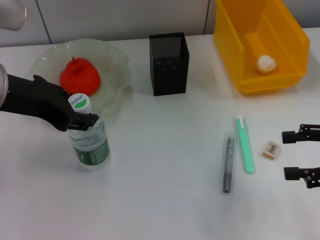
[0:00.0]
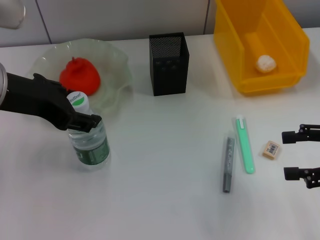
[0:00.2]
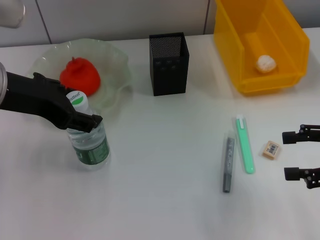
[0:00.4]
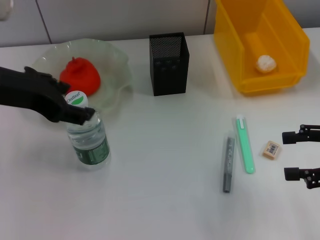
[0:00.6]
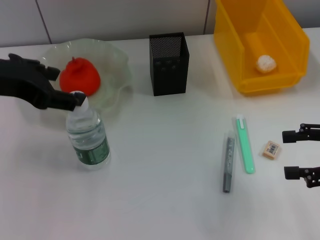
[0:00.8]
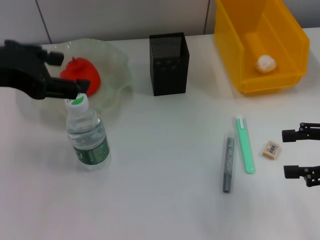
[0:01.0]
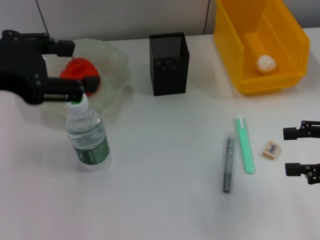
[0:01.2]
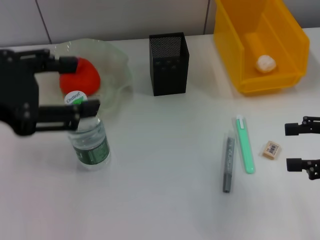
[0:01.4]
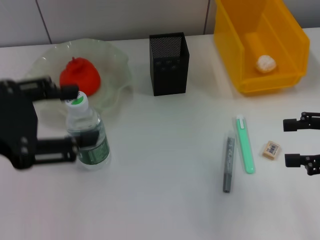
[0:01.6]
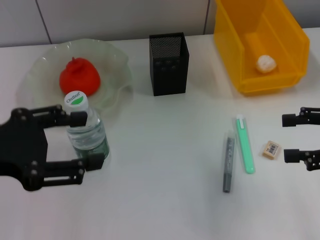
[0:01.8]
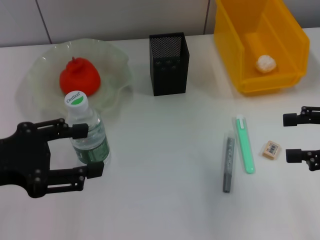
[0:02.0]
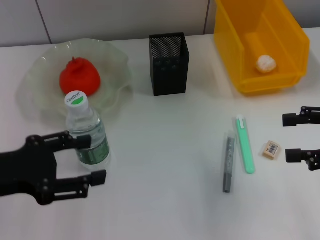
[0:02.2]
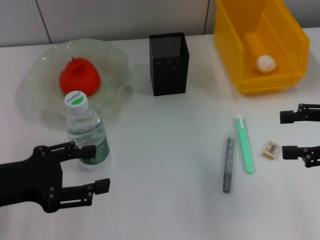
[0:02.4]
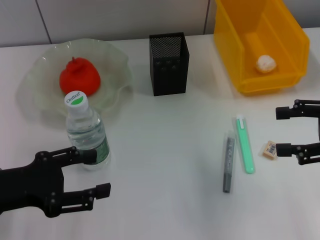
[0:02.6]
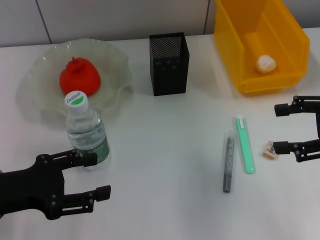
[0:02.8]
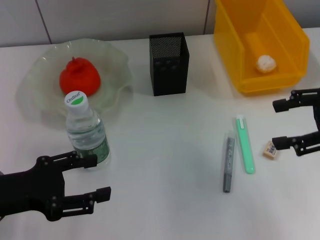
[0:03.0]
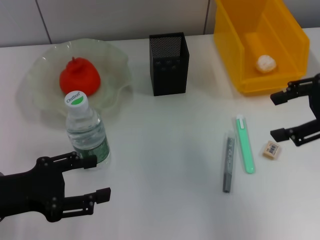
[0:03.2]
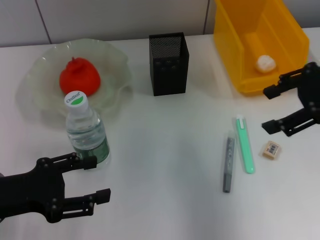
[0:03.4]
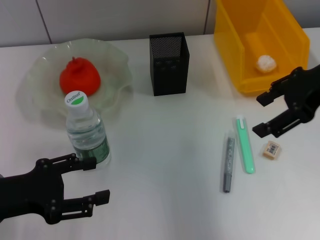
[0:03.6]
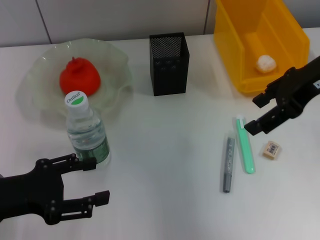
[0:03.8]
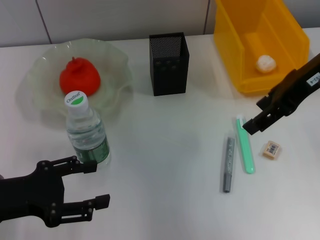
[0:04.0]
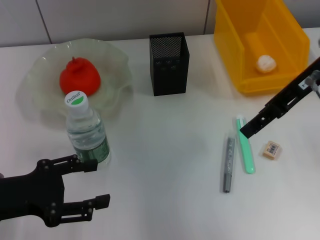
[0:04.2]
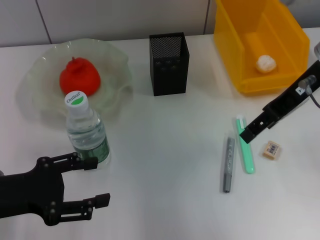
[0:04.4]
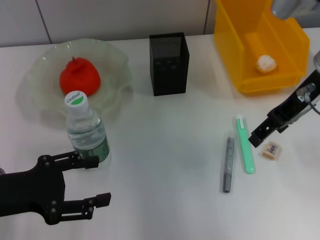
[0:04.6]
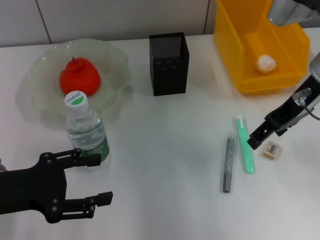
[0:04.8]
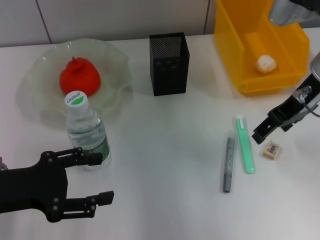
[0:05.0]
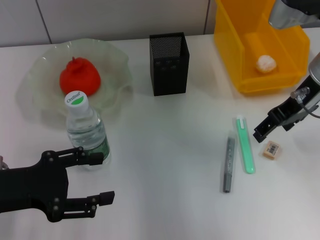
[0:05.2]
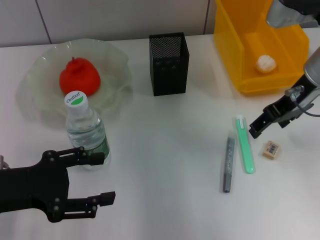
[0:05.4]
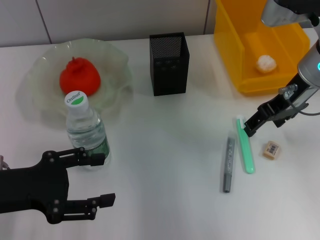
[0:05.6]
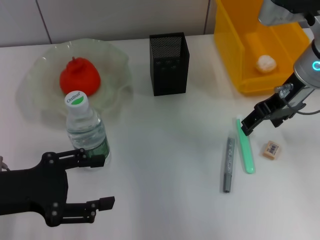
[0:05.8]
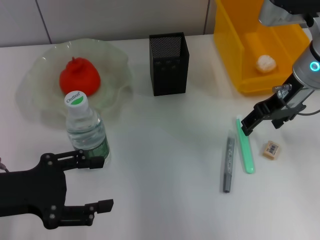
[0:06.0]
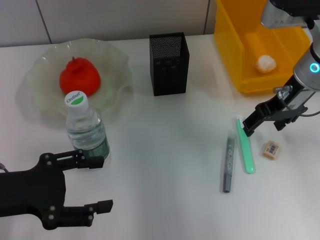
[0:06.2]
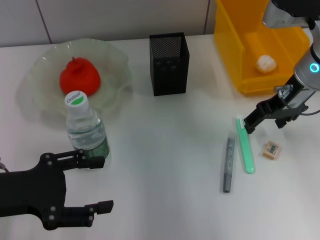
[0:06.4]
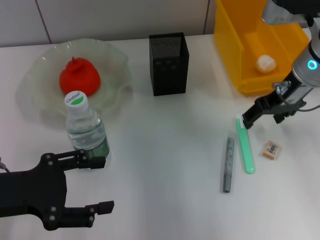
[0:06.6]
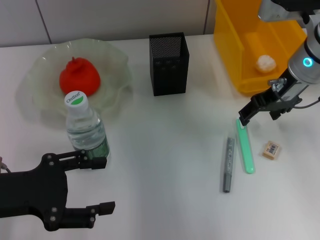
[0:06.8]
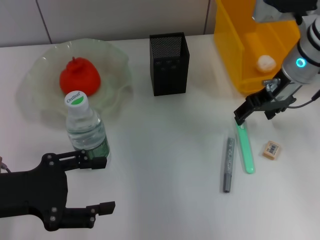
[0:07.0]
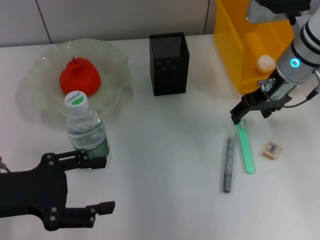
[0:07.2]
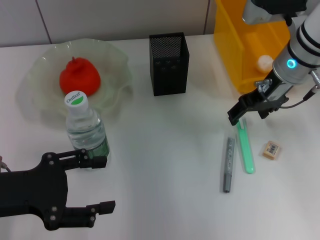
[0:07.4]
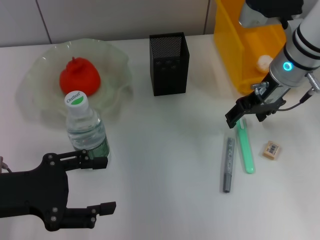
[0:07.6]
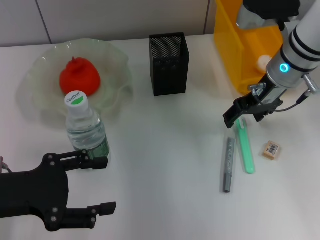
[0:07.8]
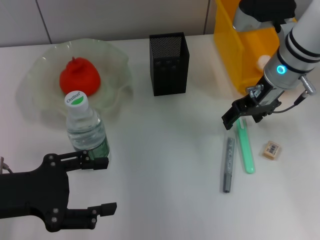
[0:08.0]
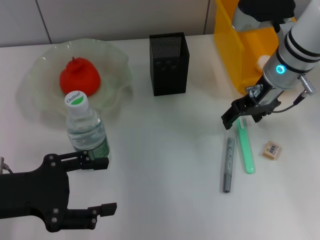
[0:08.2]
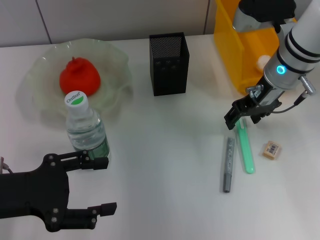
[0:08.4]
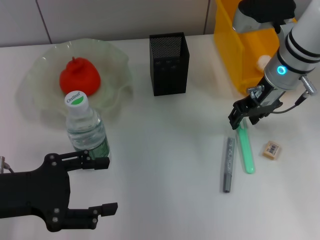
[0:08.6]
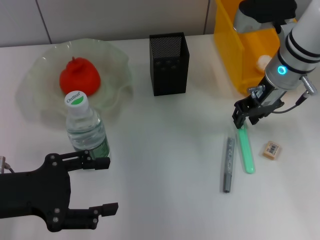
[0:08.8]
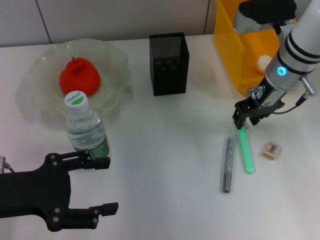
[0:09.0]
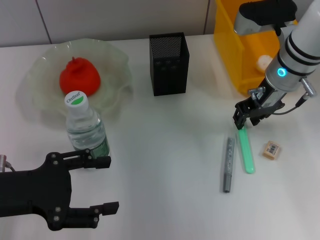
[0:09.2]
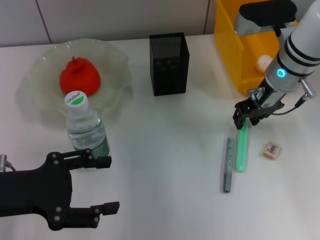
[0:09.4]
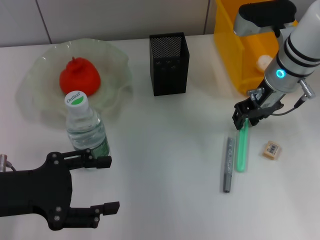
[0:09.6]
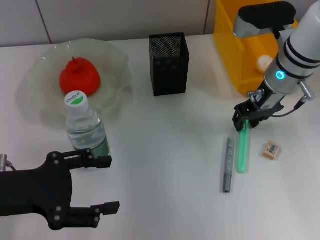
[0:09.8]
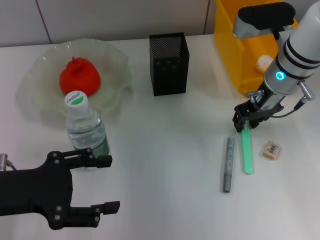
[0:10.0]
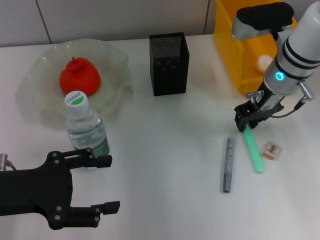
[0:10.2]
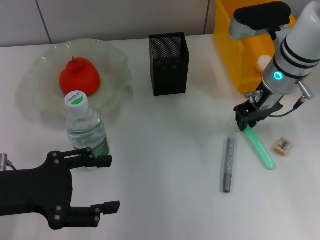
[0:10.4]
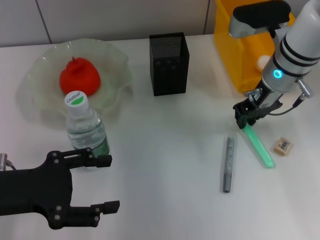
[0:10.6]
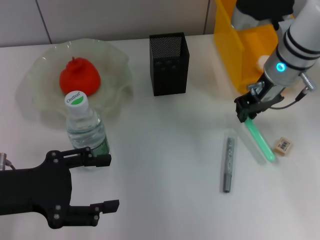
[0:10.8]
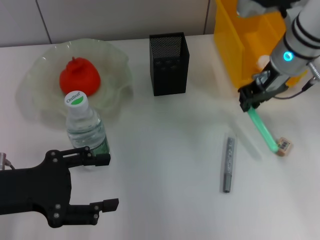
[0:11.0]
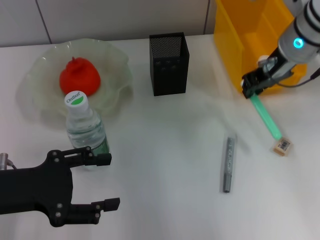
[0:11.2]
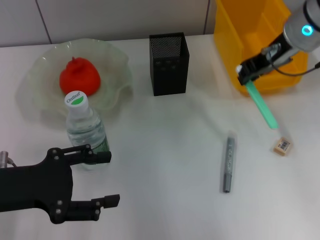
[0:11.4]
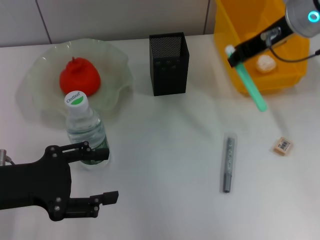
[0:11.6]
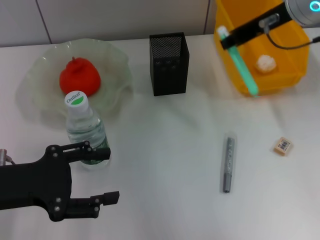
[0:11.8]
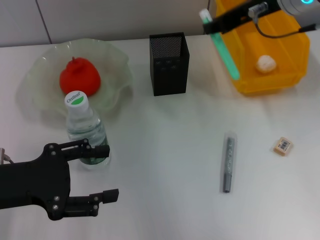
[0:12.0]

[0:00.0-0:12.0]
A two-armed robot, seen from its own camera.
Step, 0:00.6 to 0:10.2: Grab the blue utility knife with the right hand.
0:00.0 to 0:01.6: The left gripper goes approximately 10 cm backward and to the left.
0:01.6 to 0:03.0: The left gripper travels downward by approximately 15 cm. Meanwhile the right gripper heads upward, covering about 5 cm.
0:03.0 to 0:04.4: The right gripper travels to the left and forward by some 15 cm.
0:04.4 to 0:06.0: The right gripper shifts about 5 cm downward.
0:06.0 to 0:07.6: The grippers stay close to where they were, moving slightly.
0:07.6 to 0:09.0: The right gripper closes.
0:09.0 to 0:10.4: The two grippers keep their place.
0:10.4 to 0:12.0: The right gripper travels upward by roughly 15 cm.

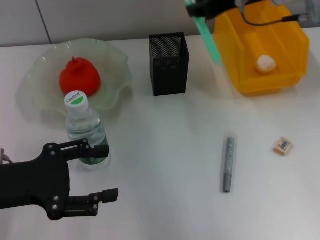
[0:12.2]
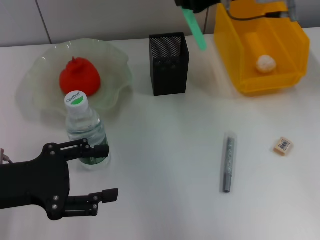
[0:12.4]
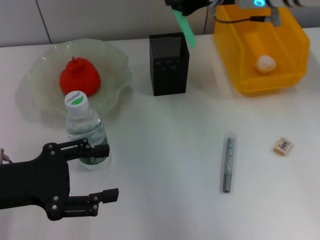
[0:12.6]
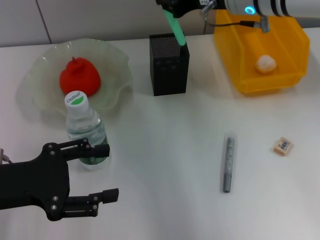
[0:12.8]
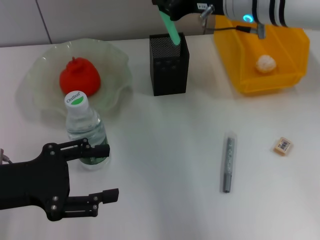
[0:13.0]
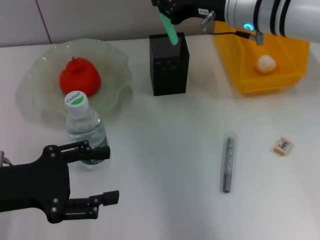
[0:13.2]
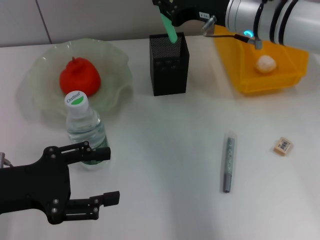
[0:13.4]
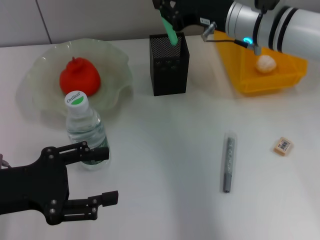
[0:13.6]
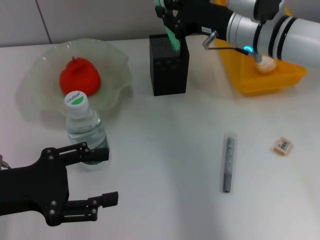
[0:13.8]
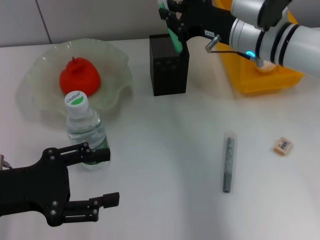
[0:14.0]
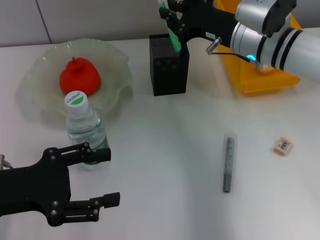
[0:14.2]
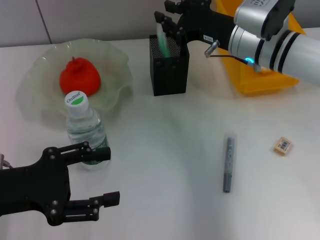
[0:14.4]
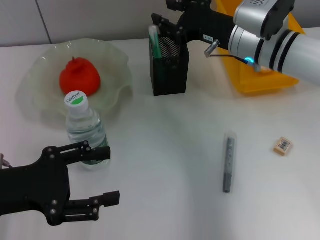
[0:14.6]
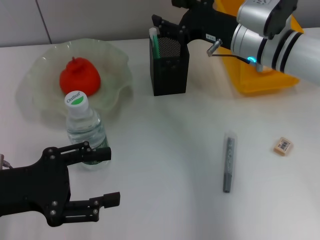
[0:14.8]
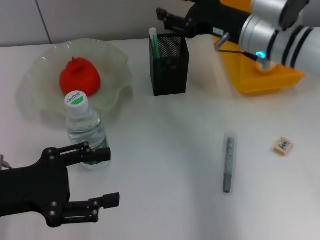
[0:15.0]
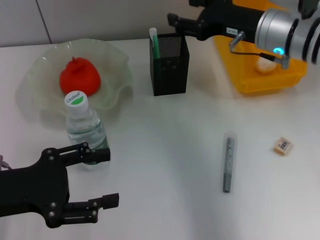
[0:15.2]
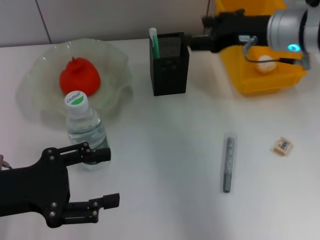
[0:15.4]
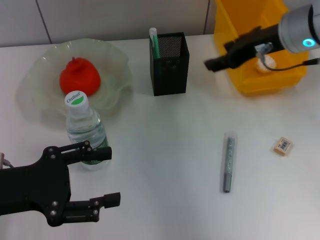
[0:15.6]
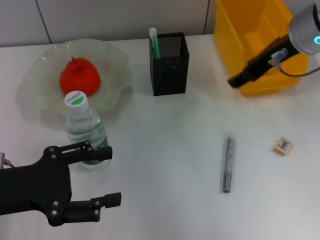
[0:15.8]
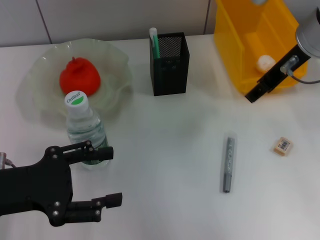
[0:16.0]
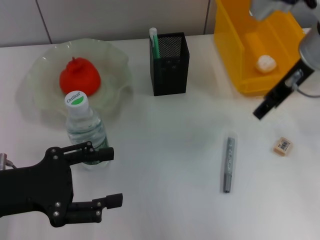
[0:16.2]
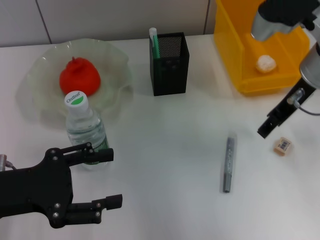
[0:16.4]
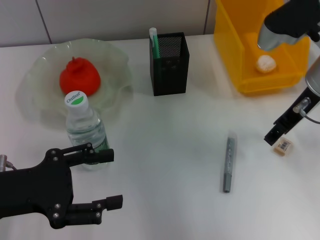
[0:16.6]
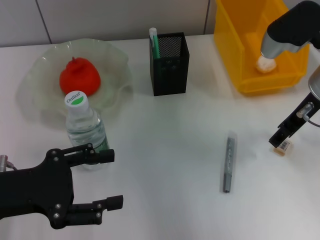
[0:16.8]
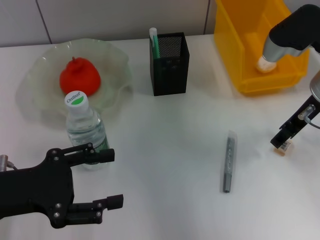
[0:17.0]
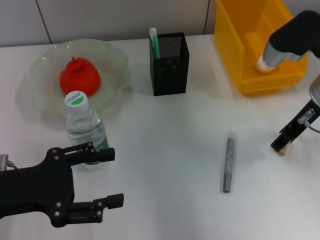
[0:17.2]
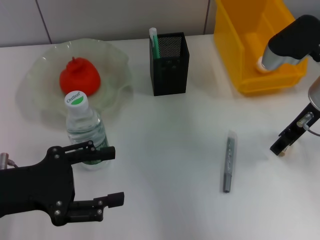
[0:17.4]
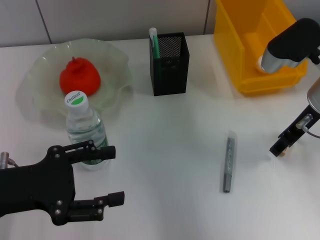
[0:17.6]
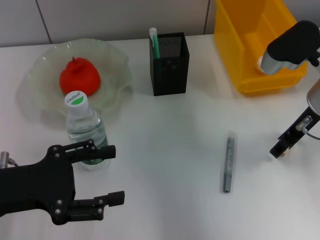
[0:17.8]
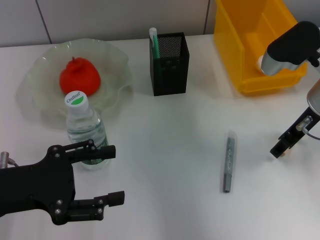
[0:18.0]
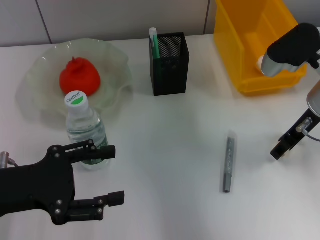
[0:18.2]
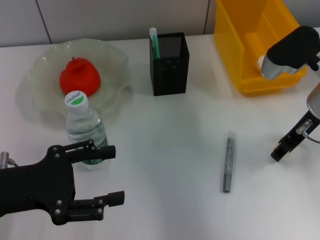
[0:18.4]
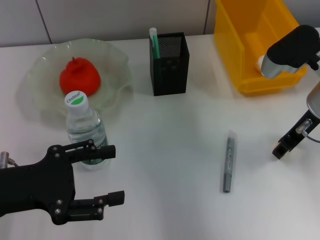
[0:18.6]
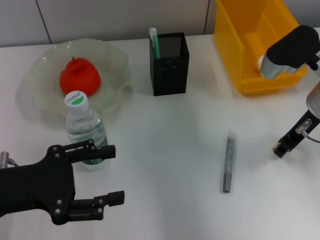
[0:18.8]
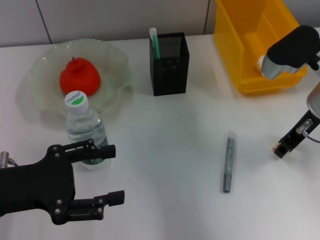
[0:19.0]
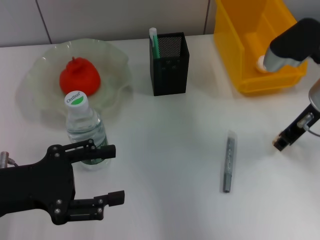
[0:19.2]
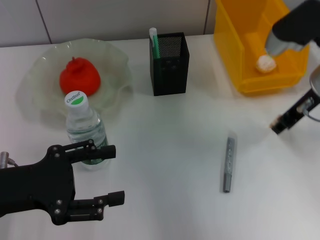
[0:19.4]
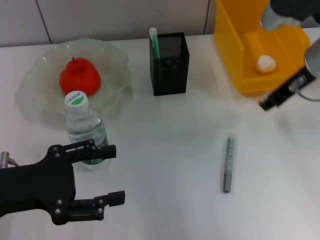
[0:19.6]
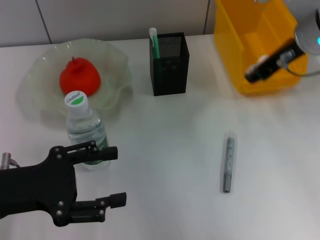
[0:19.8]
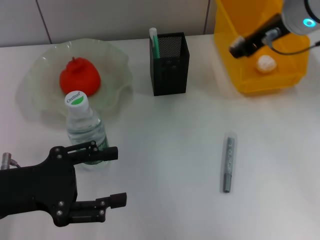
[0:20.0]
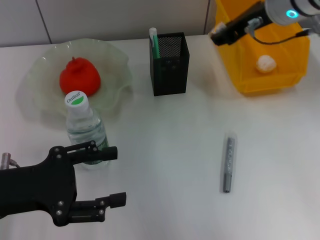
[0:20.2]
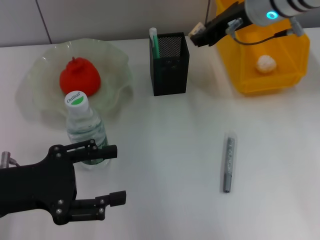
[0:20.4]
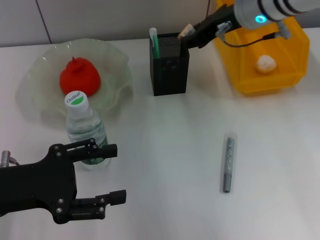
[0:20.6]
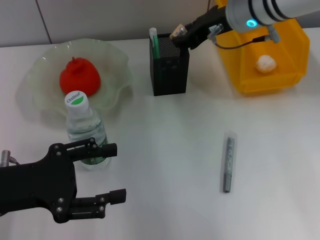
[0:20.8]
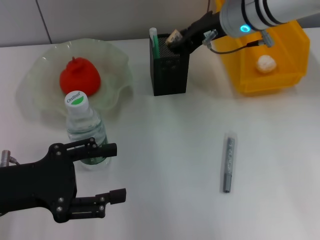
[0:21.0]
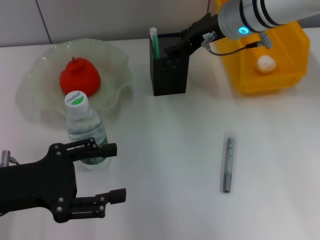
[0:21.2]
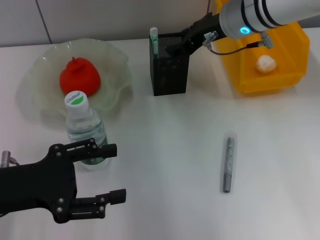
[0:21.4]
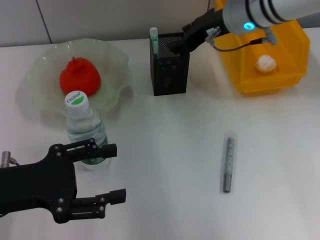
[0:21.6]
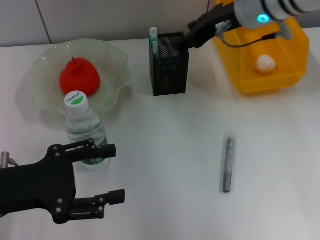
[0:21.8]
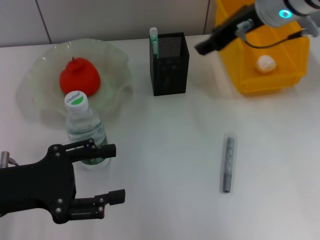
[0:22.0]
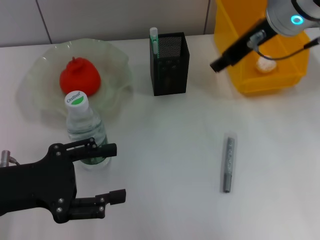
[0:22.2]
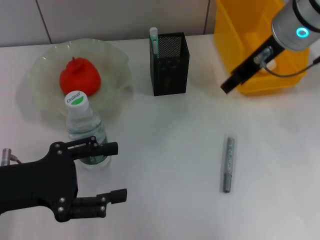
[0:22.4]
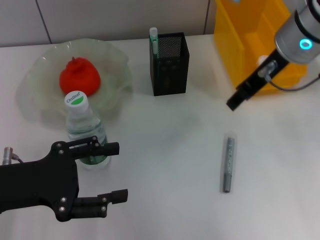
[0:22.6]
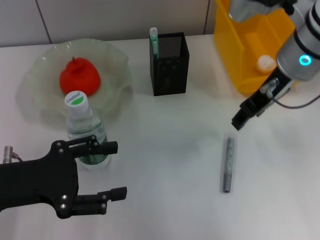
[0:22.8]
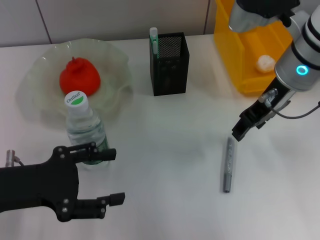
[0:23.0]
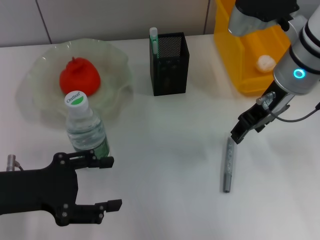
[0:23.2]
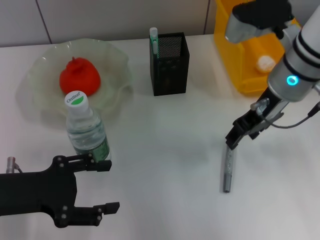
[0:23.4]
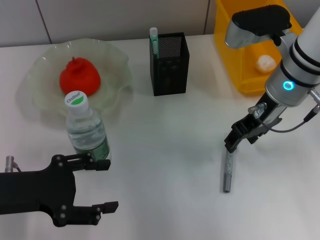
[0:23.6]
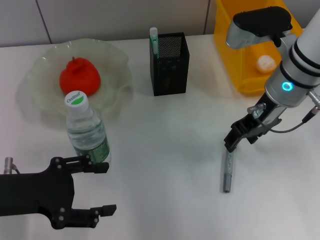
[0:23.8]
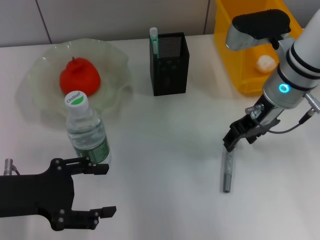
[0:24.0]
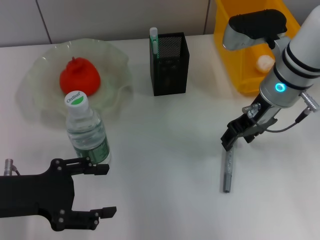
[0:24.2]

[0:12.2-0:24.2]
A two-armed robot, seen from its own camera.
Step, 0:12.2 to 0:14.6: Place the blue utility knife into the pen holder with the right hand.
Step, 0:14.8 to 0:18.8: Grab the eraser with the right hand.
Step, 0:19.2 to 0:21.4: Put the eraser into the pen holder with the right hand.
0:12.2 to 0:13.8: The right gripper shifts roughly 10 cm downward.
0:13.8 to 0:15.2: The right gripper opens its fingers.
0:16.6 to 0:18.2: The grippers make only small movements.
0:18.2 to 0:19.8: The right gripper travels upward by roughly 10 cm, and closes up.
0:19.8 to 0:21.2: The right gripper shifts roughly 10 cm to the left and forward.
0:21.2 to 0:22.6: The right gripper shifts roughly 5 cm backward.
0:22.6 to 0:24.2: The right gripper moves downward, roughly 10 cm.
